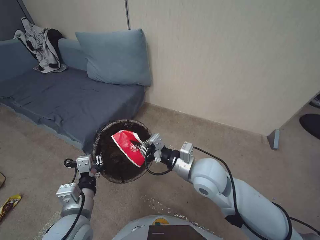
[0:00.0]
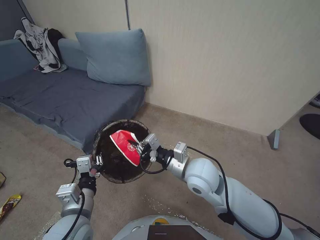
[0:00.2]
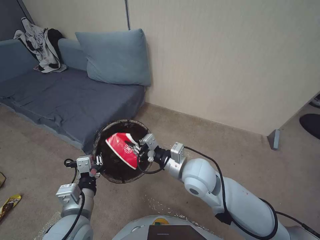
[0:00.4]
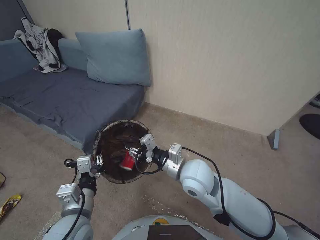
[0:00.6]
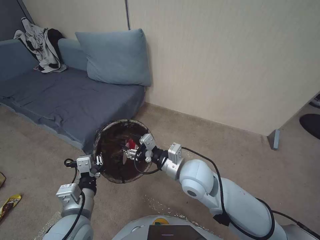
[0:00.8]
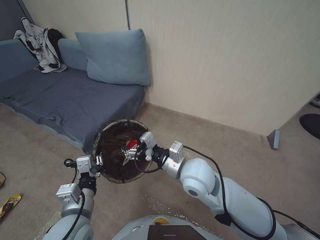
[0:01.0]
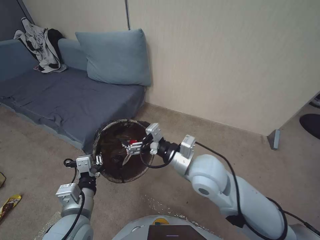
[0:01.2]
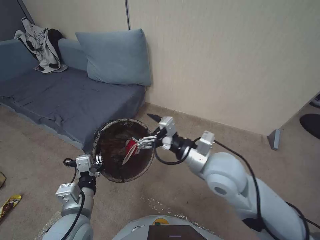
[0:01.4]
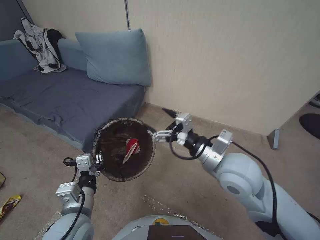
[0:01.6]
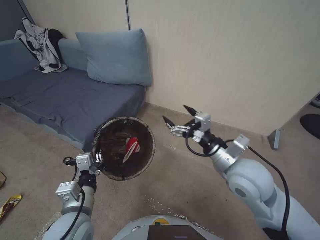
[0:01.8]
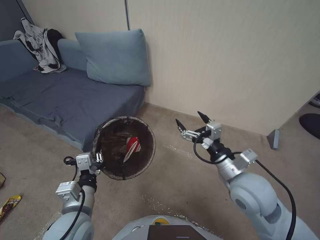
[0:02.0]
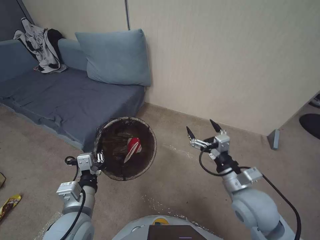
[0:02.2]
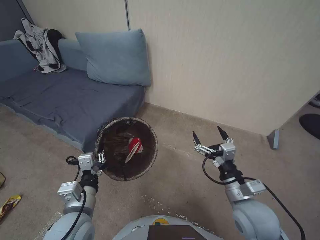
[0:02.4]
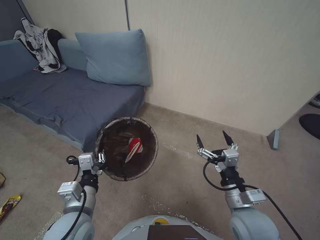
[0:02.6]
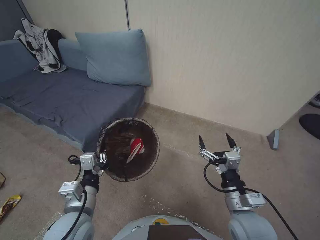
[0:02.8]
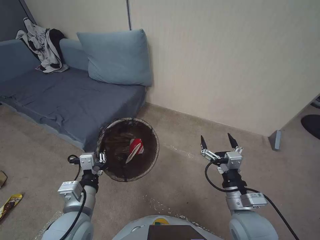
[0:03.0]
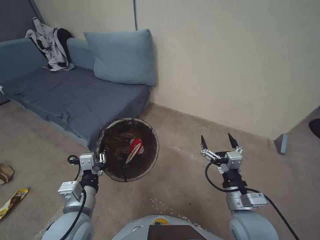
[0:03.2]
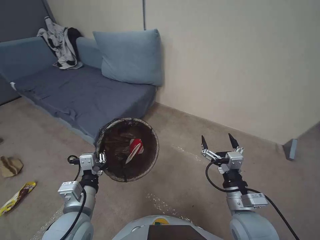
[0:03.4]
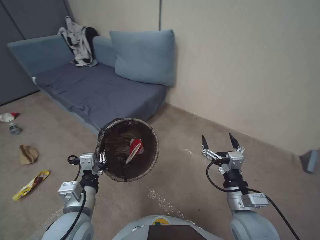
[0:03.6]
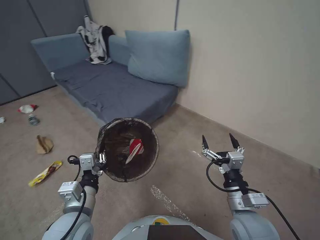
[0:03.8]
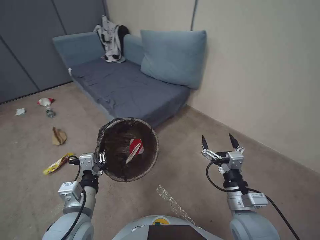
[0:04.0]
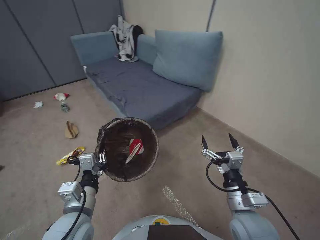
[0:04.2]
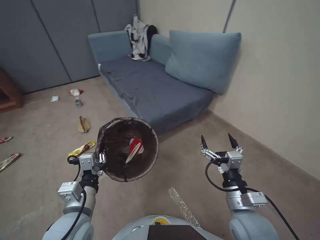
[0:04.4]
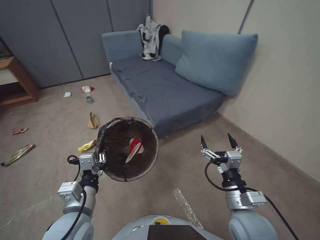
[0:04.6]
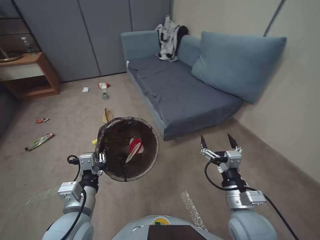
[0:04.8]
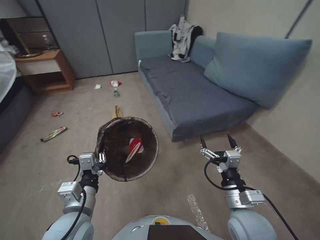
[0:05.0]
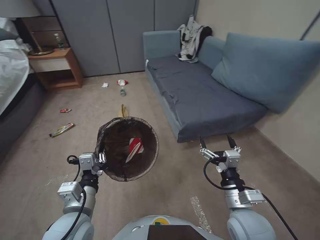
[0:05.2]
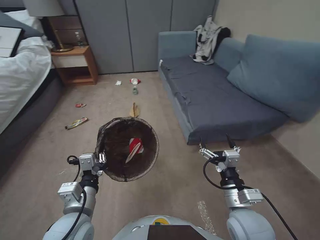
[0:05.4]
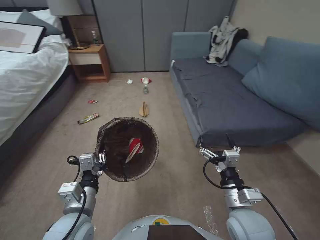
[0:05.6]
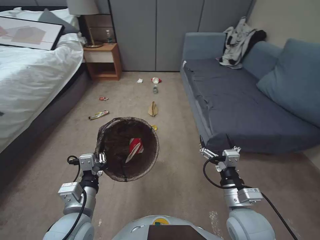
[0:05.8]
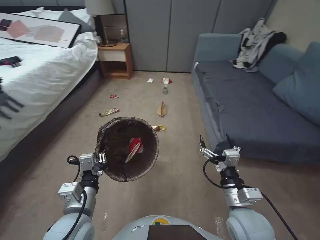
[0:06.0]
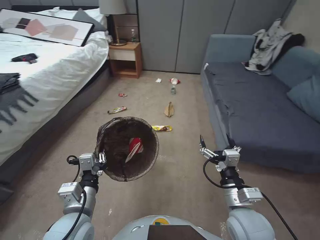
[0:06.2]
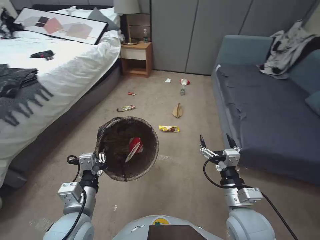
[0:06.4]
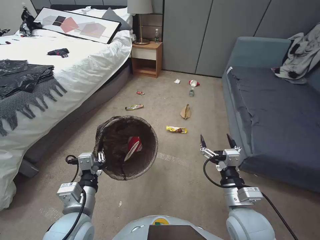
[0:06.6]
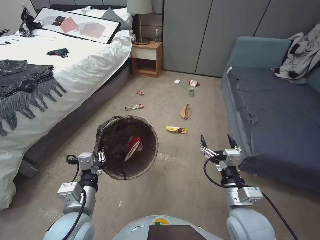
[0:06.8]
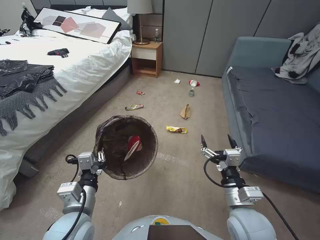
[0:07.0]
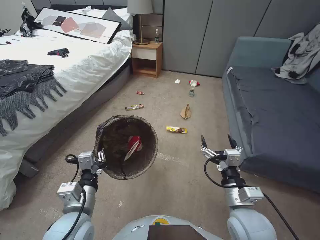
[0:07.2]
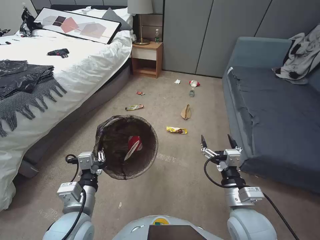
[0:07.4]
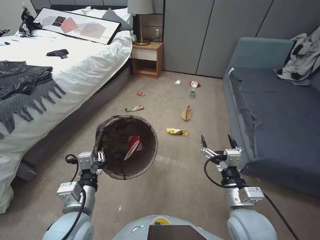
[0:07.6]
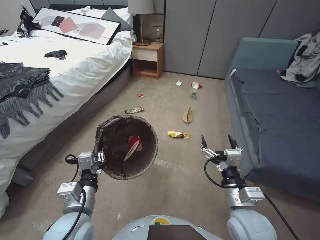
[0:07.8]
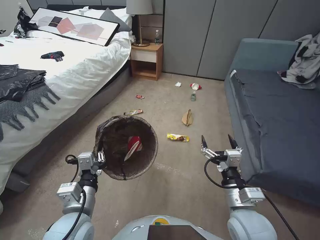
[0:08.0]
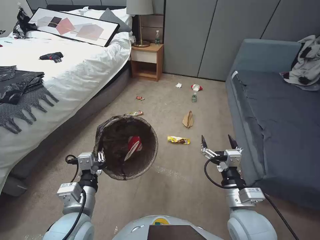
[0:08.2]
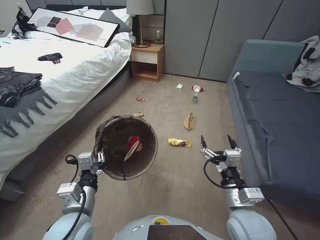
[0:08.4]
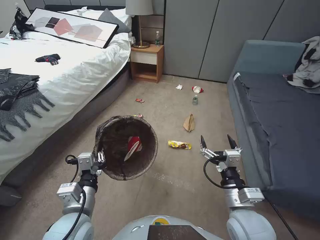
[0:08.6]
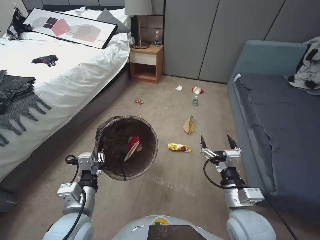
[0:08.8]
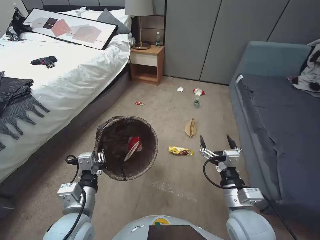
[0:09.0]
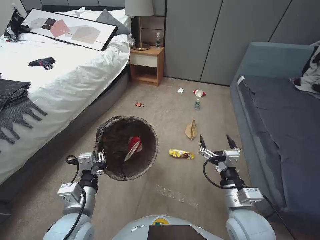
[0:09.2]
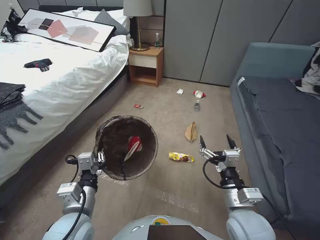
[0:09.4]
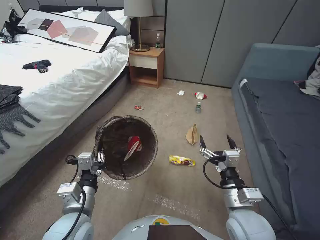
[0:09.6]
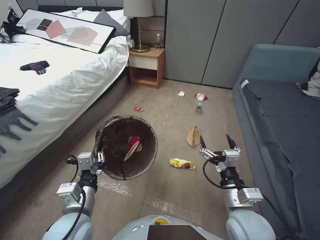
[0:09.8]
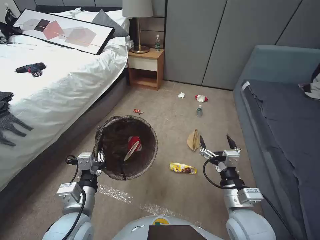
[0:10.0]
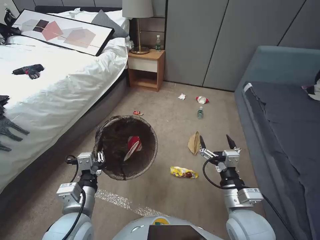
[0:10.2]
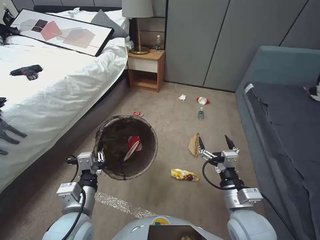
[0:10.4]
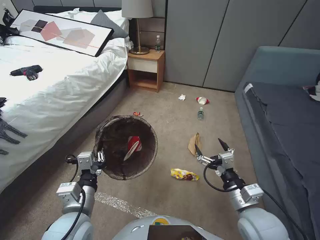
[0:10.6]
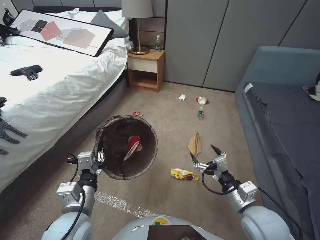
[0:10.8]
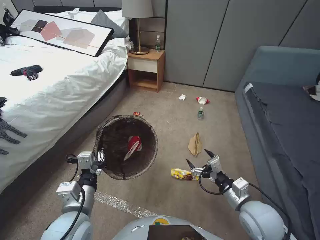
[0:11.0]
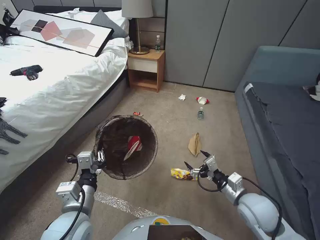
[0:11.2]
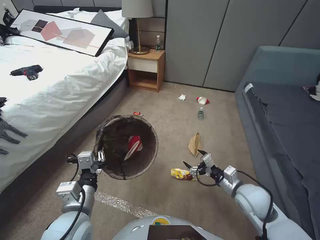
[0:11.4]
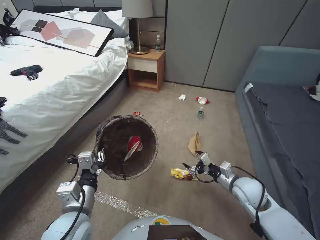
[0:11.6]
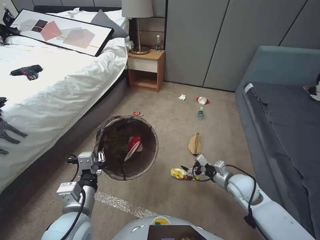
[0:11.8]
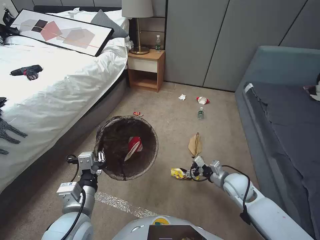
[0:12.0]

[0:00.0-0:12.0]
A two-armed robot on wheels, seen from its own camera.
Task of the whole recording: Pick up the trash bin, then pick up the garbage from the floor and place it into the trash bin.
0:00.0 to 0:01.6: The right gripper moves upward, some 5 cm, and opens its fingers.
0:01.6 to 0:03.0: The right gripper shifts some 20 cm downward, backward and to the right.
0:10.4 to 0:12.0: The right gripper travels forward, downward and to the right by about 20 cm.

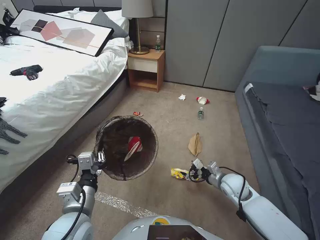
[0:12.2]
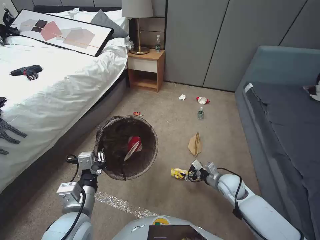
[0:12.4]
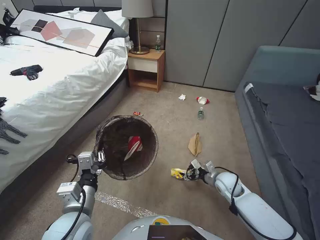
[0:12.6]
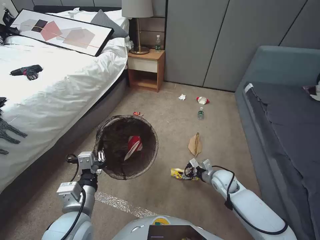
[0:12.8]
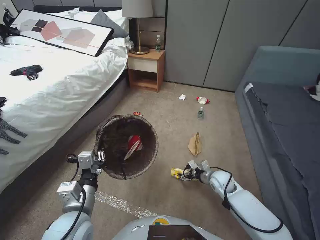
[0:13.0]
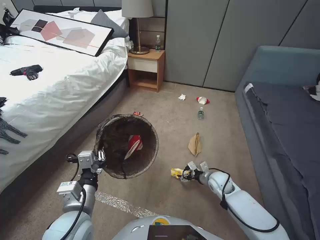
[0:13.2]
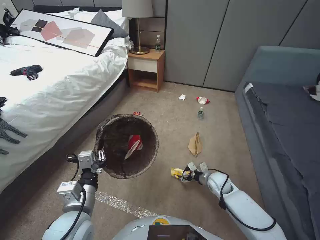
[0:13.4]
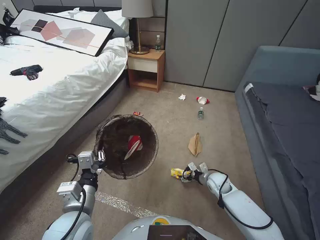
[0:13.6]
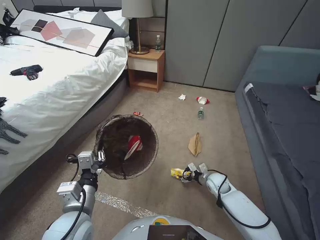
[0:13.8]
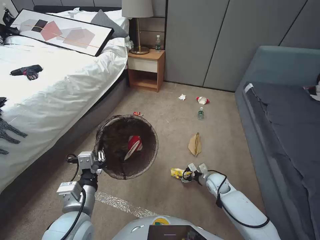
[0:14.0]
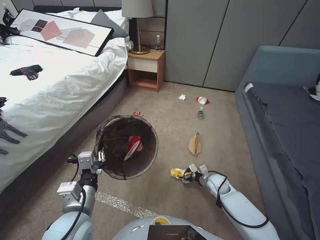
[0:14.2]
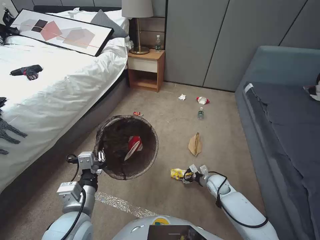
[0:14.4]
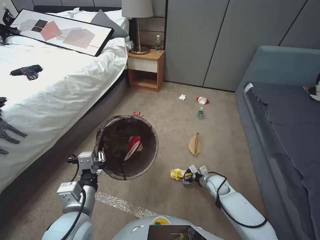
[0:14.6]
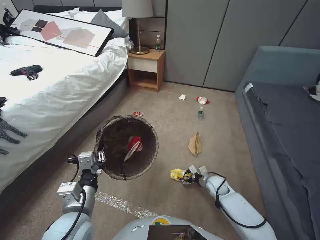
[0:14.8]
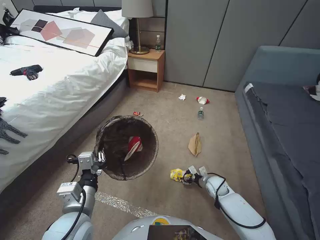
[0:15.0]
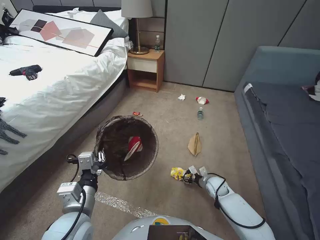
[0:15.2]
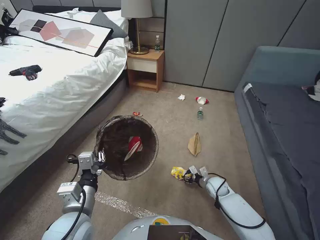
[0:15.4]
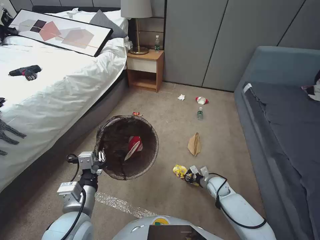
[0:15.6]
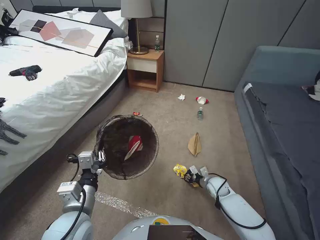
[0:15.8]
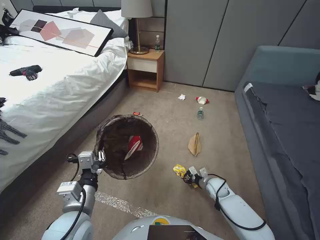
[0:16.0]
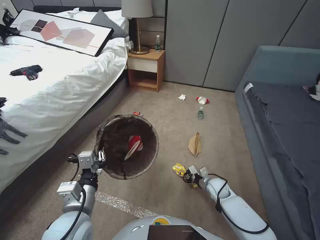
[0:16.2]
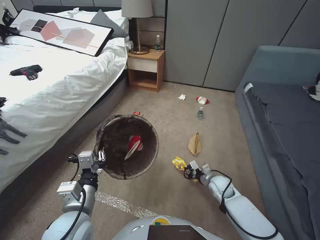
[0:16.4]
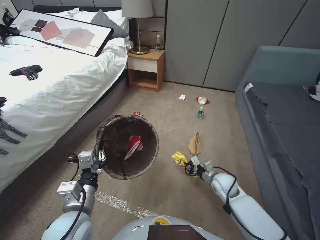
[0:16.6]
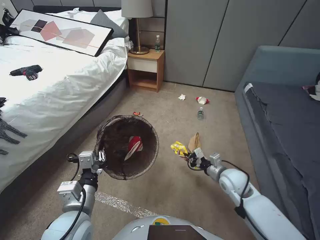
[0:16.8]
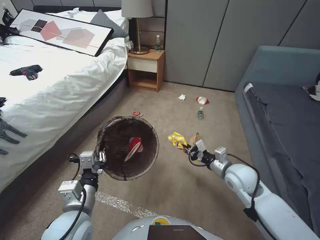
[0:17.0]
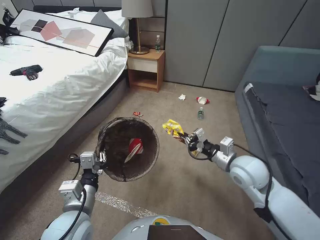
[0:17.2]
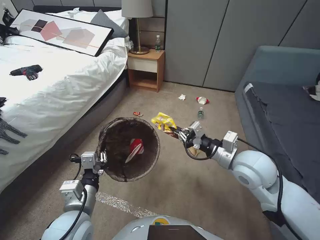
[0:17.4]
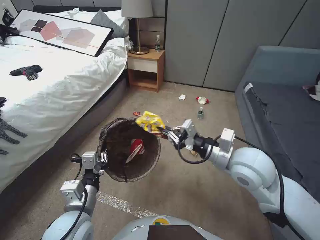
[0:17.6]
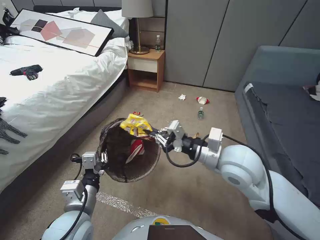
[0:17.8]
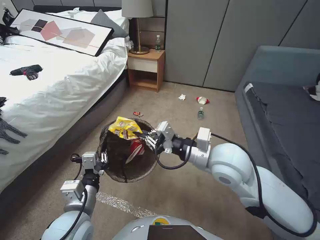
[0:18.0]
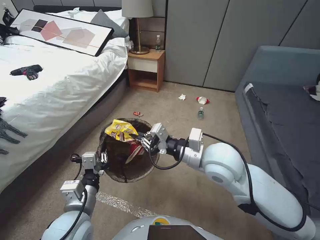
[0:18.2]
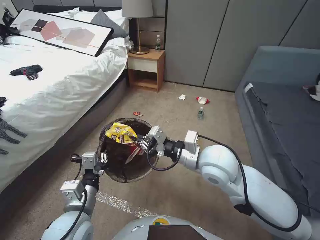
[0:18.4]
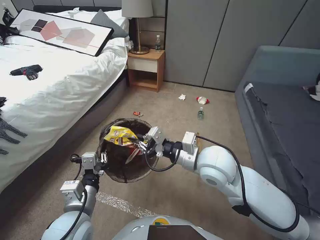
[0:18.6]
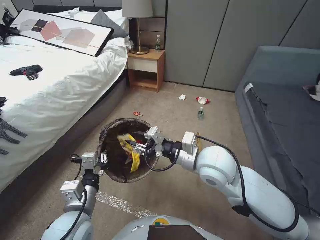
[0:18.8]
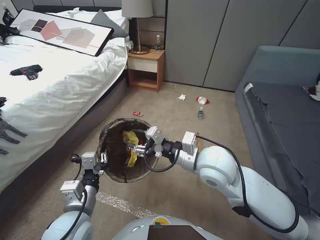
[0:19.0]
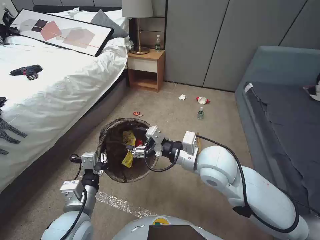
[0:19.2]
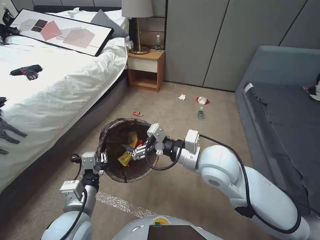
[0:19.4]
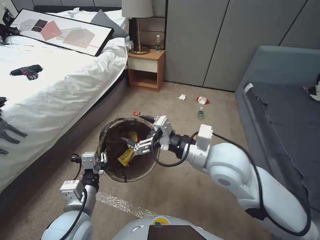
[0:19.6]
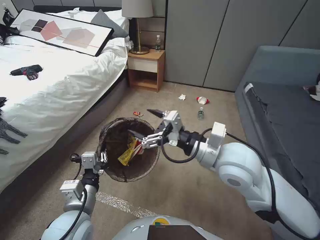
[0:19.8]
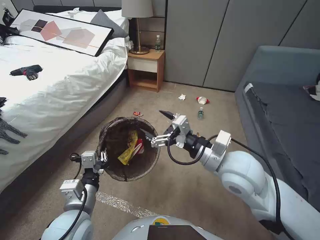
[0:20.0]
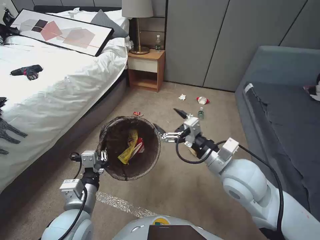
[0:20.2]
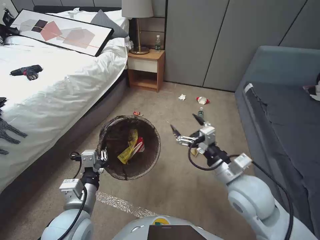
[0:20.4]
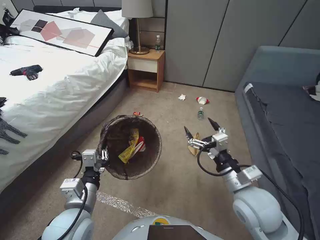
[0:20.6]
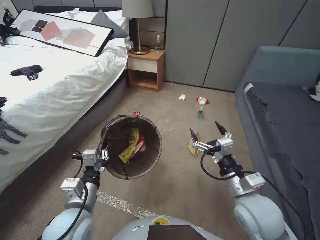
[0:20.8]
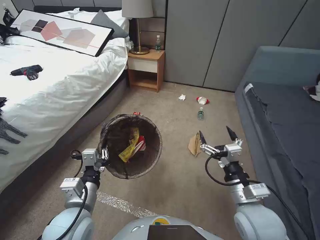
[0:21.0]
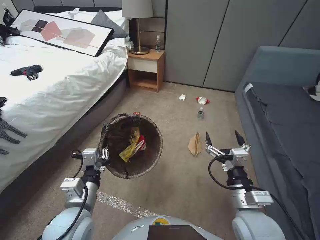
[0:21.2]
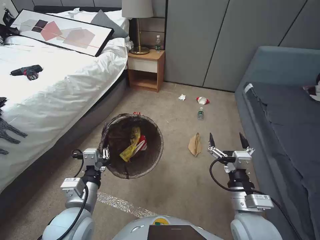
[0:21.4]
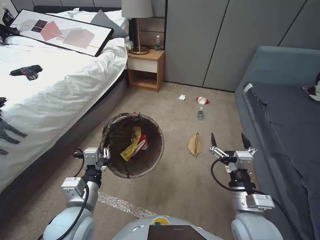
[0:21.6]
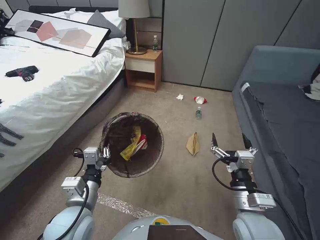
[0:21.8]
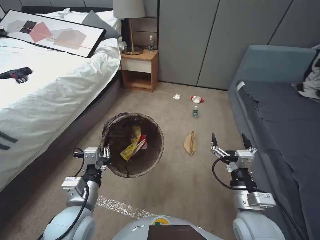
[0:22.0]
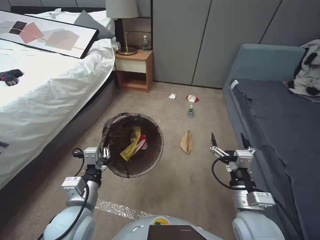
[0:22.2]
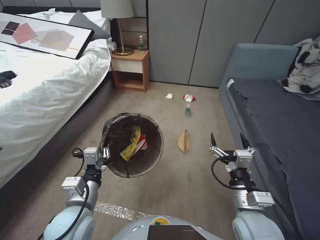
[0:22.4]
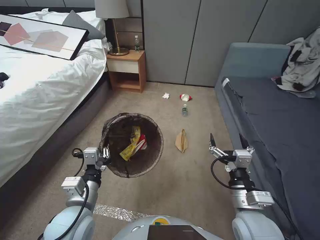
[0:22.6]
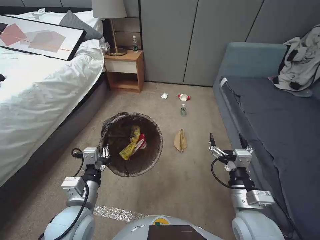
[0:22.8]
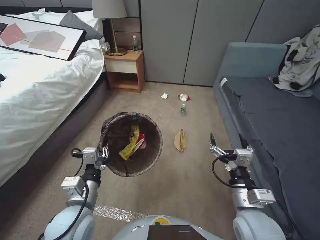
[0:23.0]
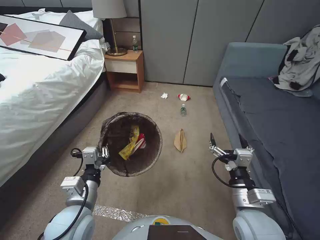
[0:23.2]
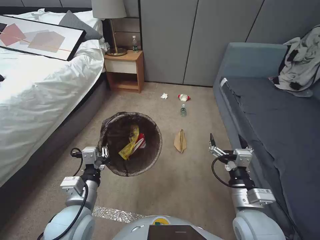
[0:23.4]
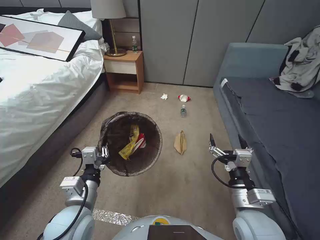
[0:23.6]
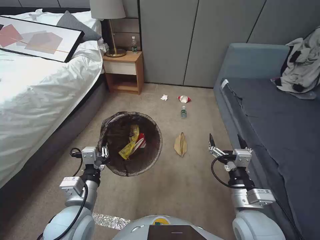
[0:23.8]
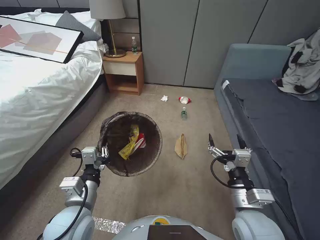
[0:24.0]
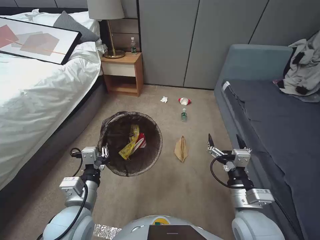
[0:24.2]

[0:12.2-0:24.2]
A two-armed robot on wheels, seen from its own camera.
Task of the whole recording: Pick up the trash bin, then pick up the garbage from the floor and place it into the trash bin.
0:12.2 to 0:13.8: The right gripper shifts about 10 cm downward.
0:13.8 to 0:15.2: There are only small adjustments of the grippers.
0:15.2 to 0:16.6: The right gripper goes roughly 10 cm upward, and closes.
0:16.6 to 0:18.2: The right gripper is displaced upward and to the left by approximately 30 cm.
0:18.2 to 0:19.8: The right gripper opens up.
0:19.8 to 0:21.2: The right gripper moves downward, backward and to the right, some 20 cm.
0:22.6 to 0:24.2: Both grippers stay put.
